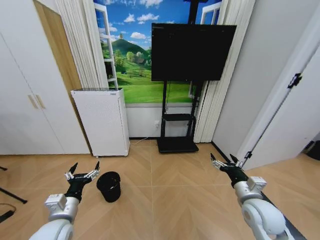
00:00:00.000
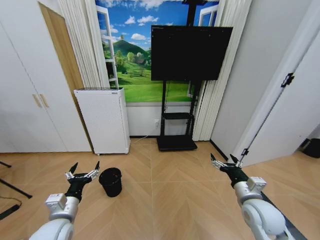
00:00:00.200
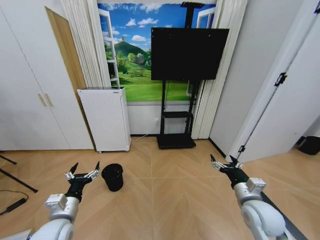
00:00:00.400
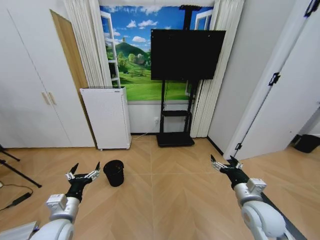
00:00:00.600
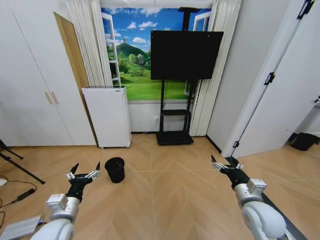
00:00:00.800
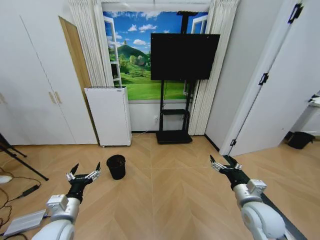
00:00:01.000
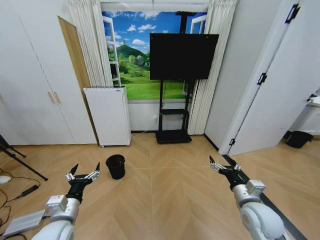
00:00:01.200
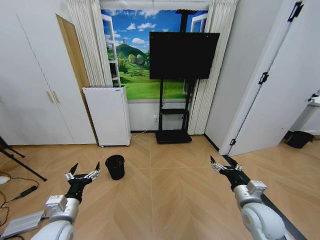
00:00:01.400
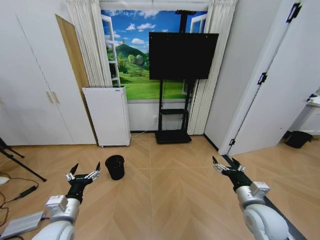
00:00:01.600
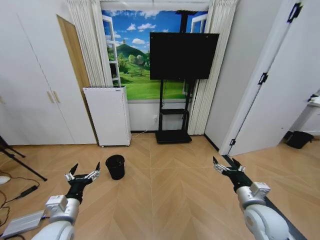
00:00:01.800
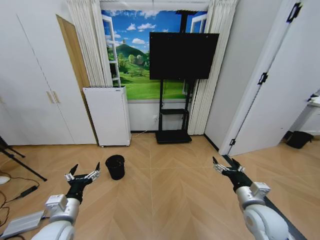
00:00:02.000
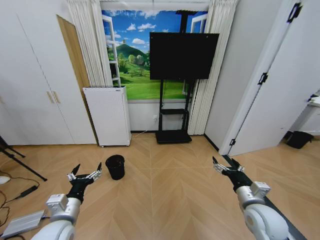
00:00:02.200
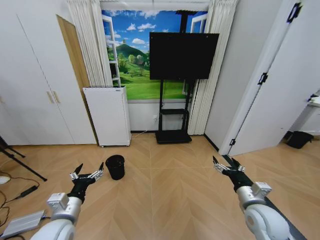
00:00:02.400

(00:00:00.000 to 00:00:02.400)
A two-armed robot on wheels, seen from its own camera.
Task of the whole recording: Pick up the trash bin and place the garbage on the floor into it.
00:00:01.200 - 00:00:02.400: The two grippers keep their place.
